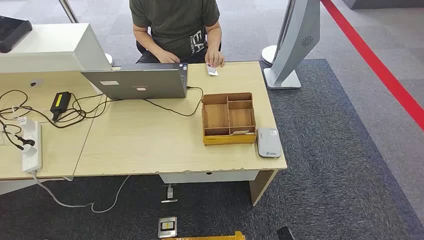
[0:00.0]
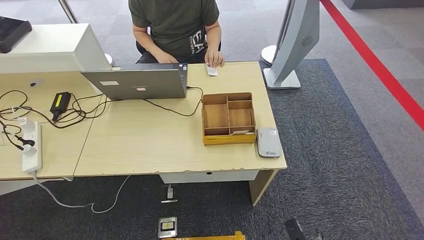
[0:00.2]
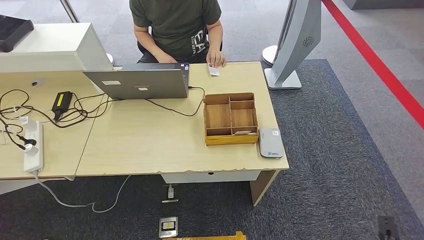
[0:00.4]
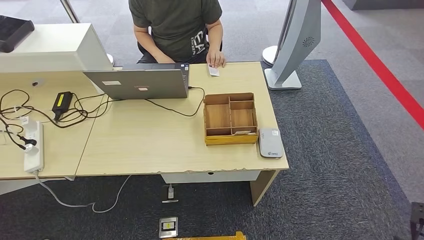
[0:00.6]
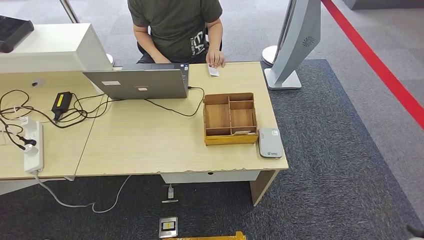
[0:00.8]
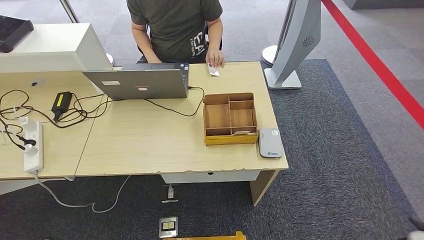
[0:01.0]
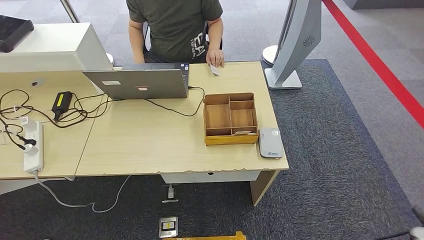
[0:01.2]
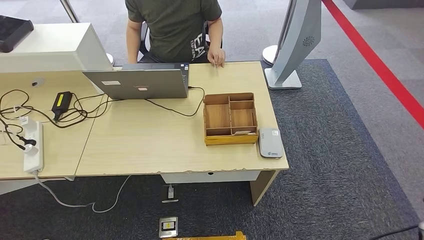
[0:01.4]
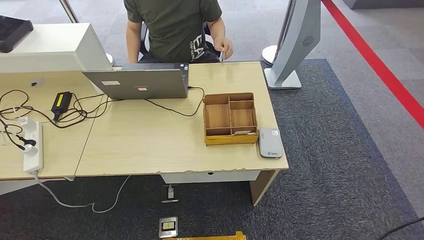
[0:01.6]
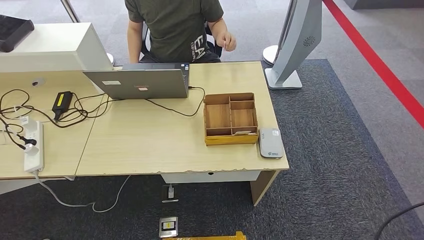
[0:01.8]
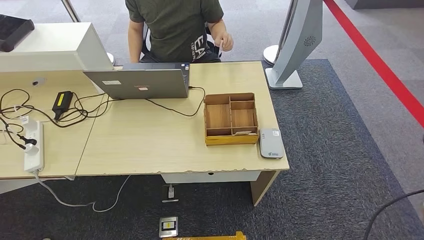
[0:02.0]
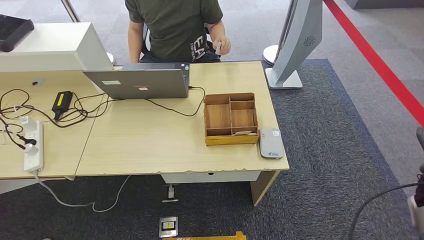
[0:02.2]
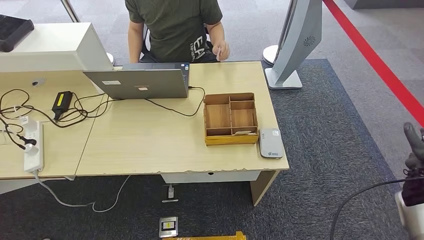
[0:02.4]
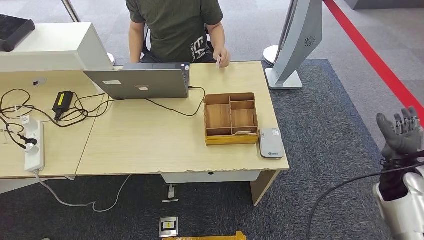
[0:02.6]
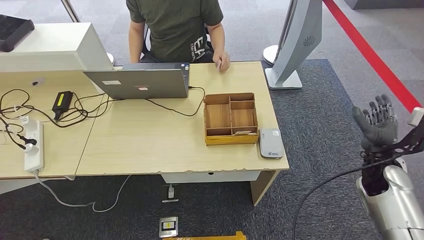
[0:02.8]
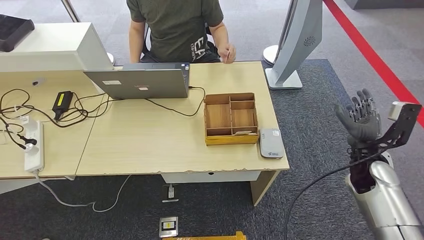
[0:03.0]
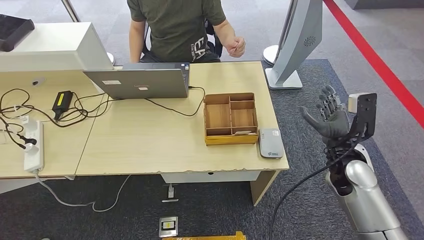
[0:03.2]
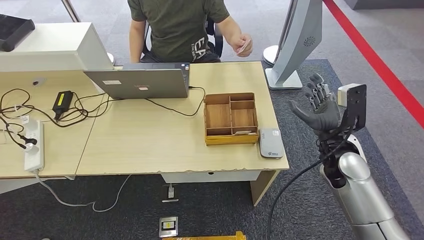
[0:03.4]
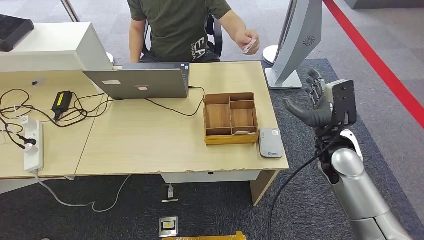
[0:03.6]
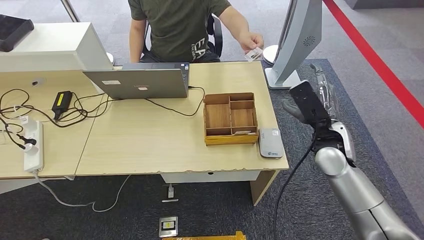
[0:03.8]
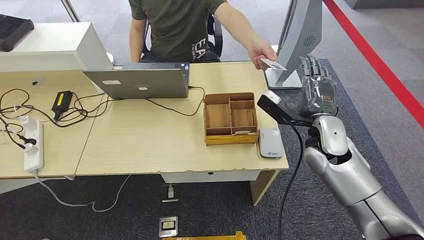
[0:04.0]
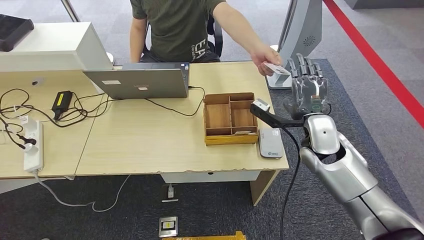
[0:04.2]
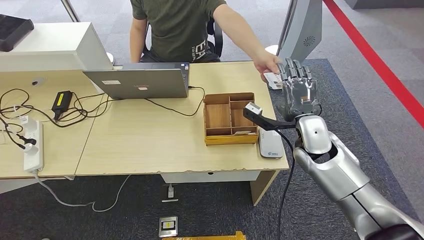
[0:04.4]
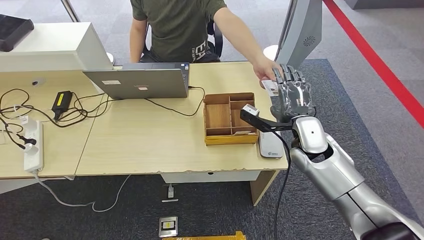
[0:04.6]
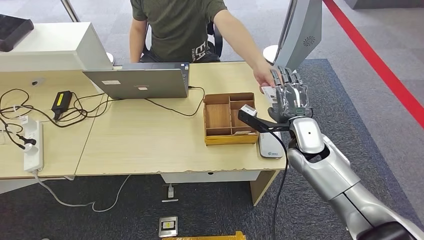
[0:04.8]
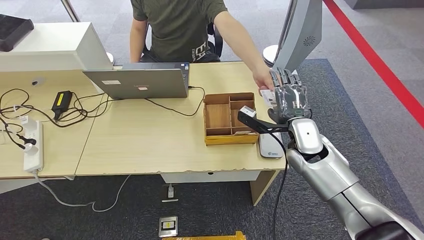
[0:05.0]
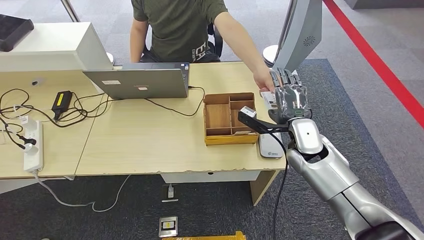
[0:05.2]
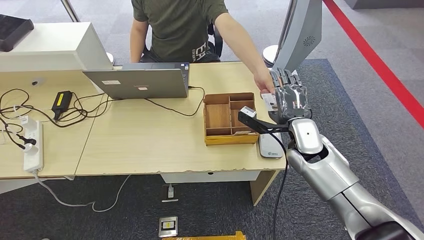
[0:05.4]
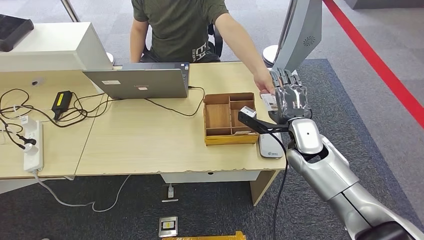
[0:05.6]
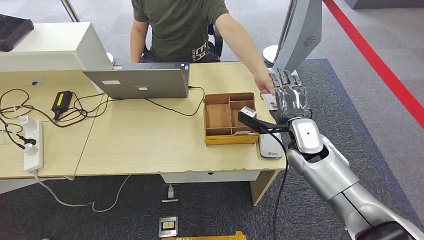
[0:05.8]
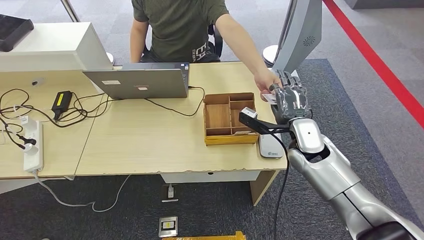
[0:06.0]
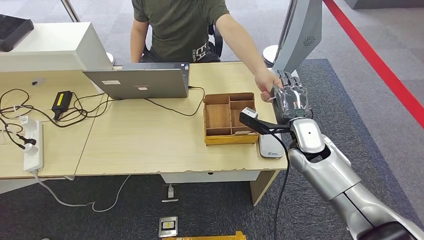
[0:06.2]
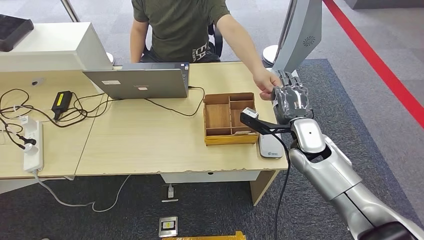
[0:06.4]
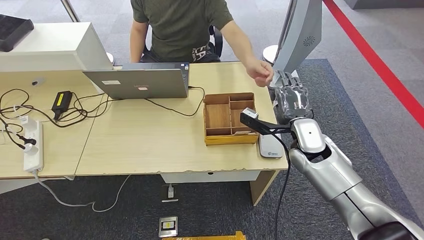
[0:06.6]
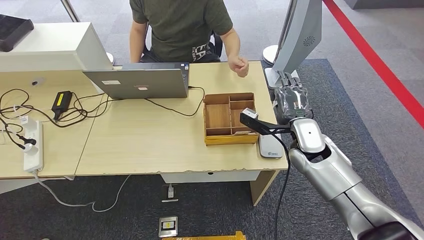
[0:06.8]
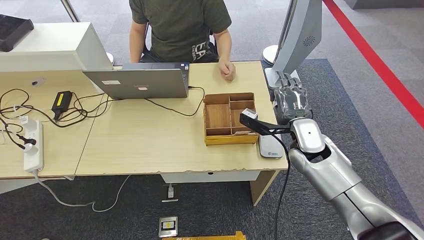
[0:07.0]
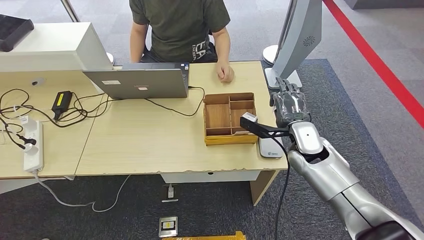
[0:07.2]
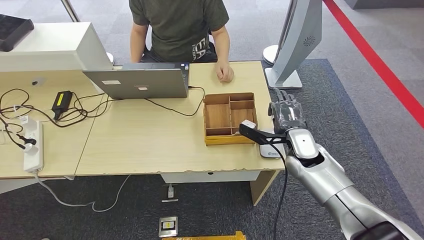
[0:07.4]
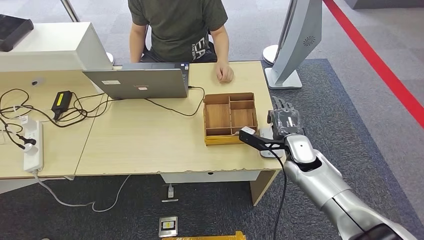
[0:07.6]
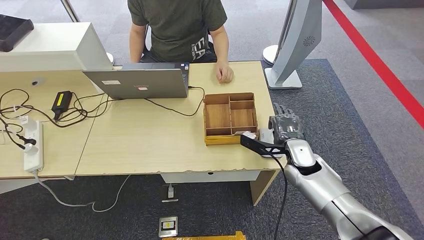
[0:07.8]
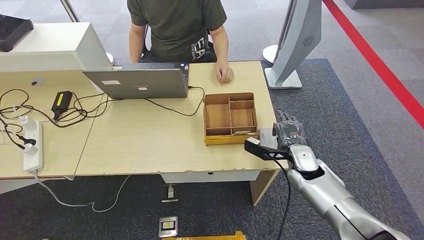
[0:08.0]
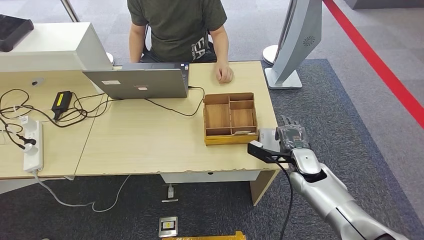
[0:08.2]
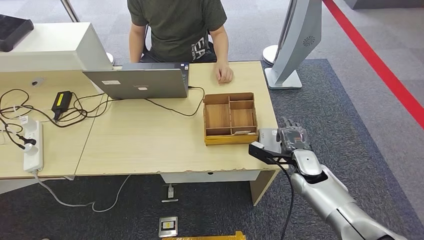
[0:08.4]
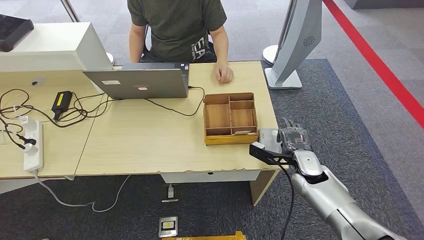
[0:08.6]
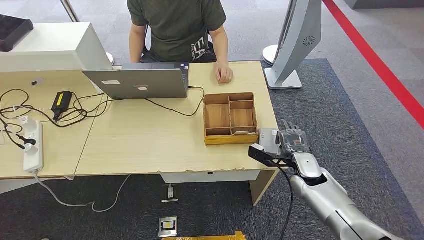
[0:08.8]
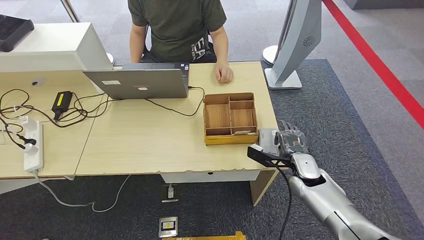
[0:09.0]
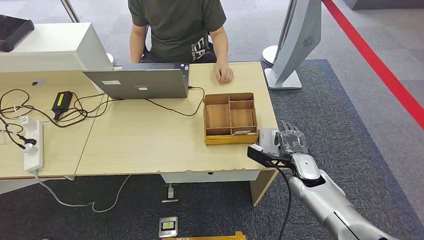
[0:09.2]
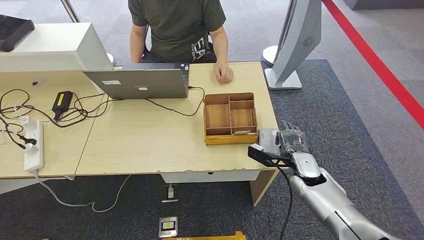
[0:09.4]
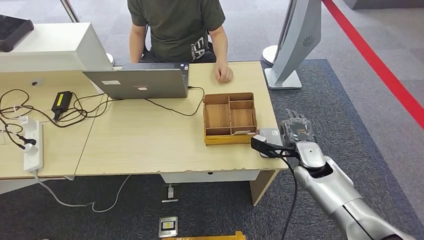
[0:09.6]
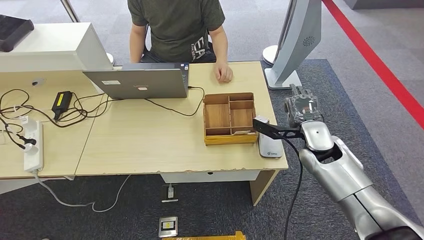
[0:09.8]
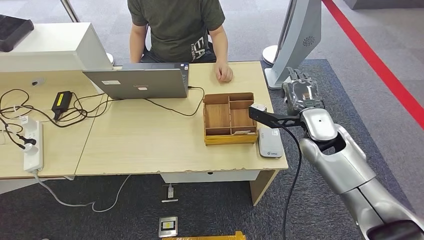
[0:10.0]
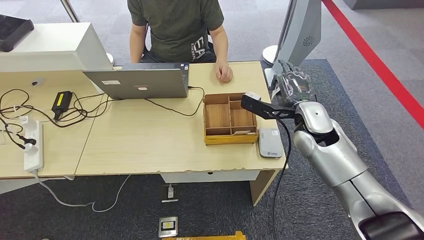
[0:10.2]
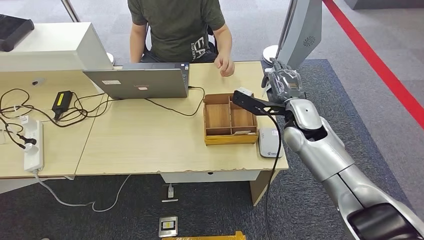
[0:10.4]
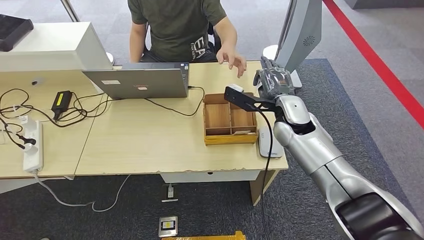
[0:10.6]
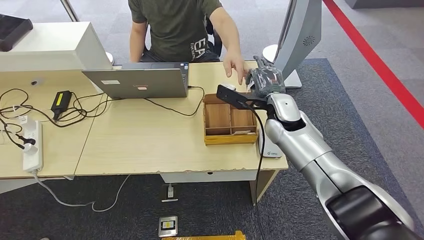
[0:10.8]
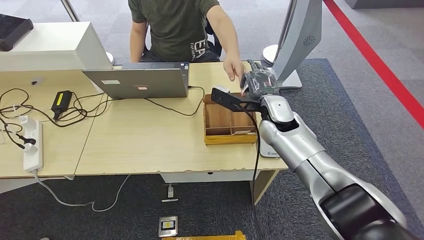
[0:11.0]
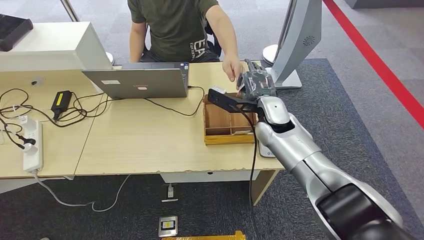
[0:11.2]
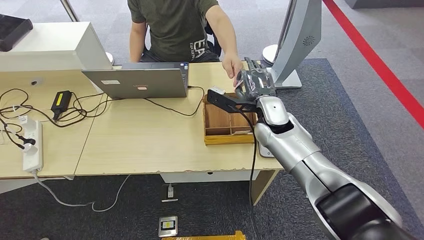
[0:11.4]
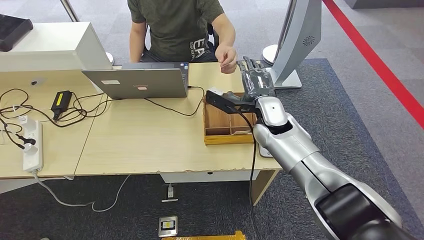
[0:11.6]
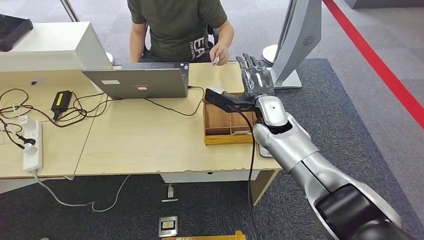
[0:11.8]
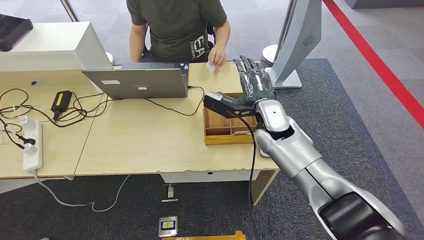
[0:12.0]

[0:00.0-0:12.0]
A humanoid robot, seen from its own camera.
Step, 0:00.0 to 0:06.6: Take the ID card from the person's hand.
Step, 0:06.8 to 0:08.8: Place the ID card on the card reader.
Step, 0:09.0 to 0:11.6: Hand the ID card to the person.
0:01.6 to 0:03.0: The right hand moves to the left and forward, roughly 25 cm.
0:03.0 to 0:04.4: The right hand heads to the left and forward, covering approximately 15 cm.
0:04.4 to 0:06.0: The hands stay close to where they were, moving slightly.
0:06.0 to 0:07.6: The right hand moves downward, about 5 cm.
0:07.6 to 0:09.0: The right hand heads downward, covering some 5 cm.
0:09.0 to 0:10.4: The right hand goes some 20 cm upward and forward.
0:10.4 to 0:12.0: The right hand travels to the left by about 10 cm.

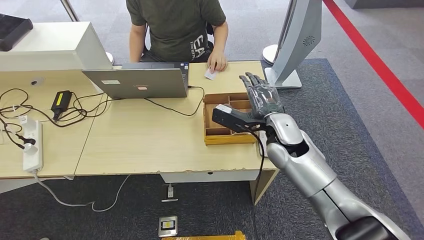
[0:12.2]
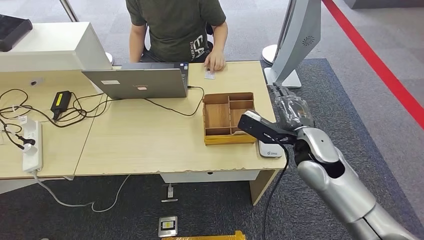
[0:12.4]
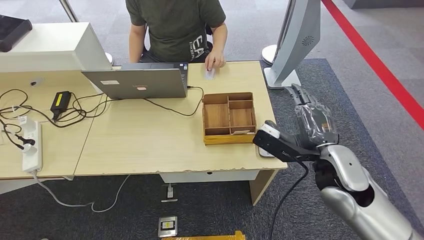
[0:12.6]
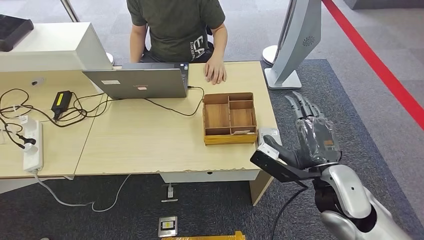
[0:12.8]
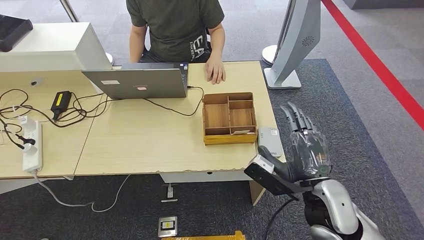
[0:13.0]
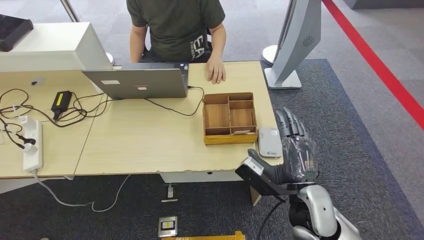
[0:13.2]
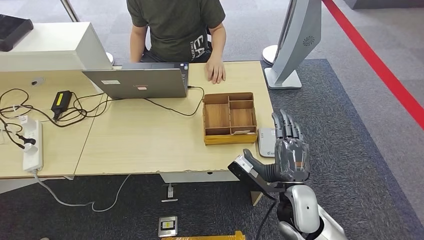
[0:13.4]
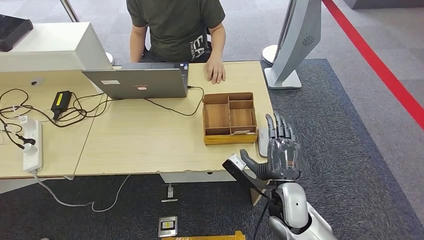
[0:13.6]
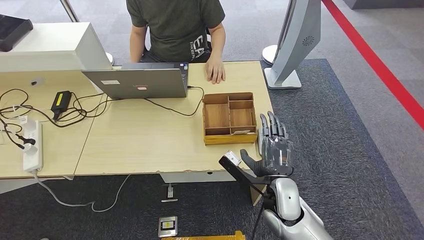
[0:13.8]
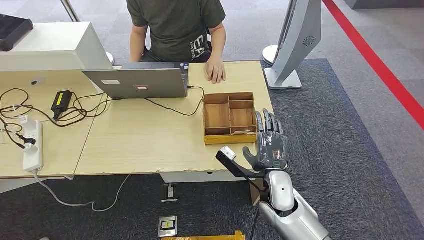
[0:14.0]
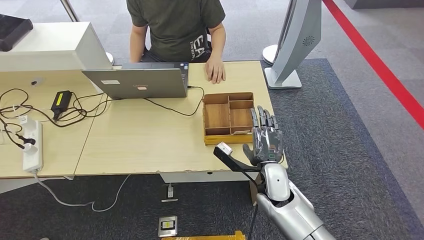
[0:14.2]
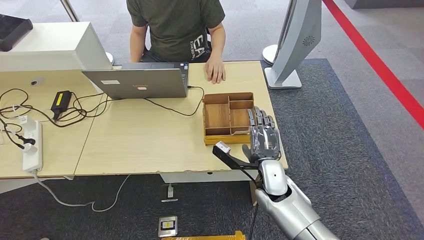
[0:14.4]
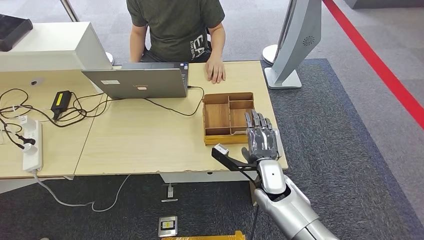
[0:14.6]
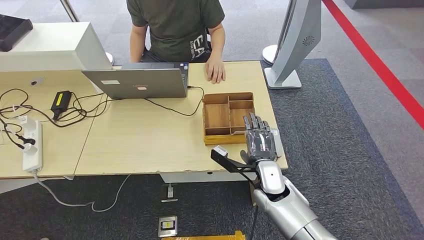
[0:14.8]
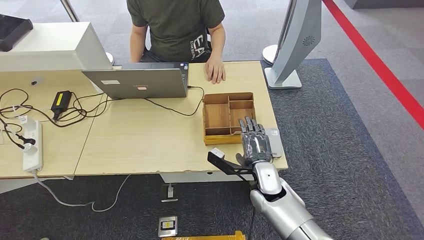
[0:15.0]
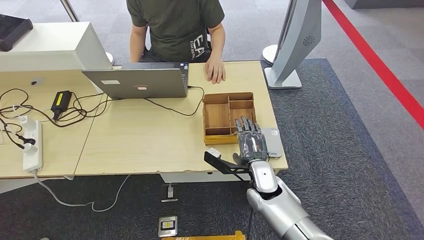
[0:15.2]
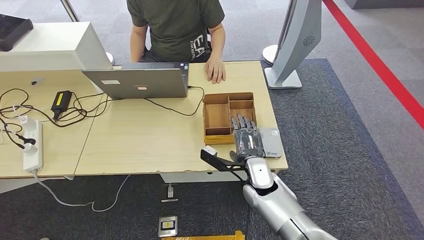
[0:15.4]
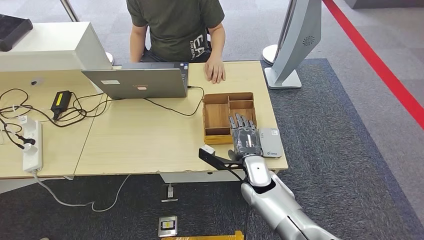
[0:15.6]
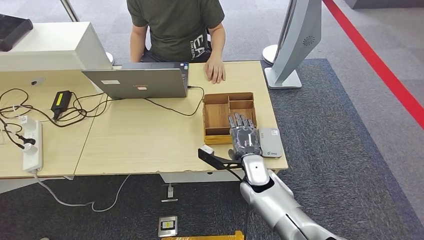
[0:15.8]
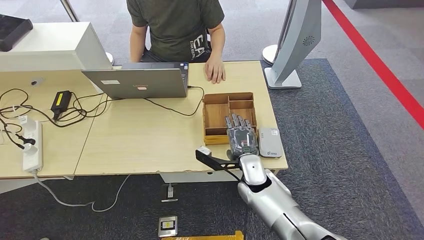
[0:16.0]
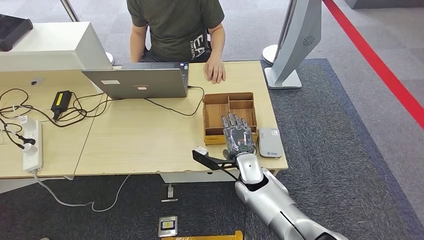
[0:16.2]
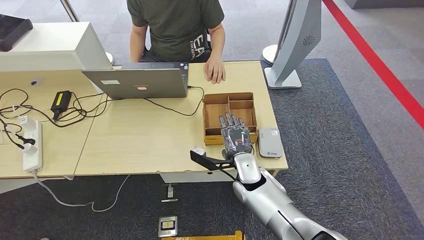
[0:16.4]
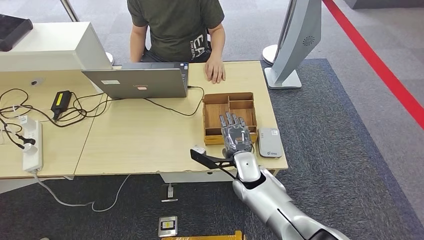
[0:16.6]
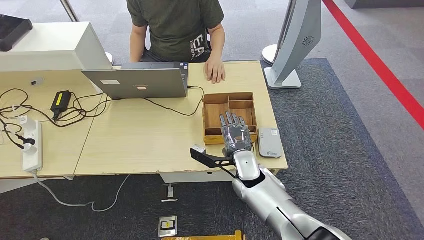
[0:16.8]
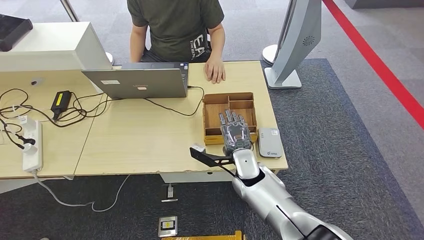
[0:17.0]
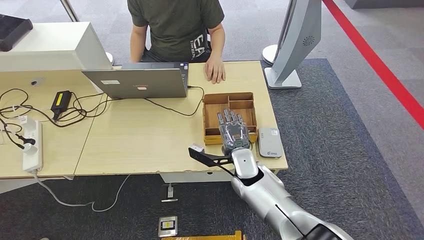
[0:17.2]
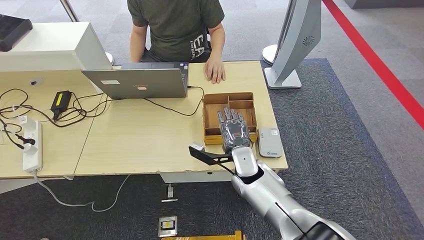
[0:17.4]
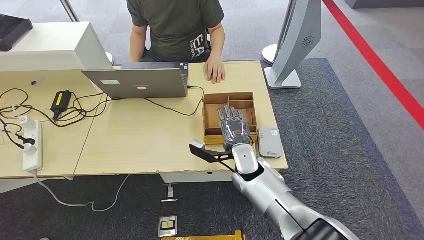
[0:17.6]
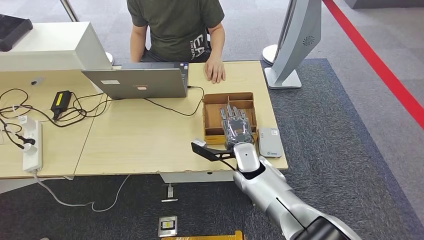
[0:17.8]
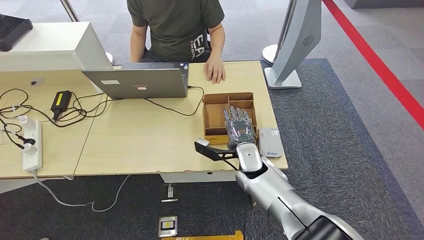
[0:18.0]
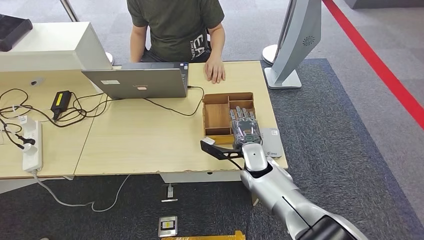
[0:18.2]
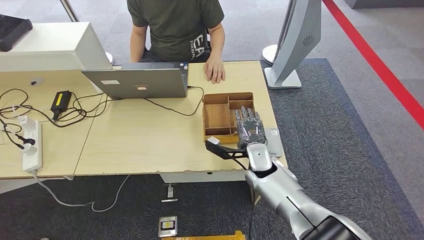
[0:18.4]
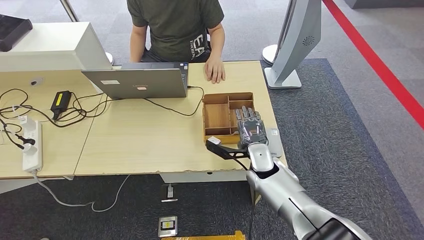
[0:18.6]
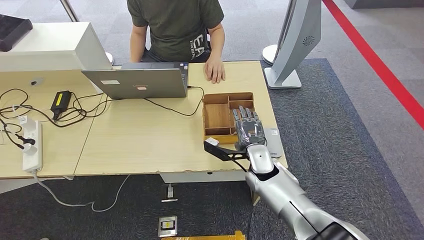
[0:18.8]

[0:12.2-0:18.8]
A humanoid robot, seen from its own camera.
0:12.2 to 0:13.8: The right hand heads backward and downward, covering approximately 15 cm.
0:13.8 to 0:15.4: The right hand travels forward by some 5 cm.
0:15.4 to 0:18.8: There are only small adjustments of the hands.
